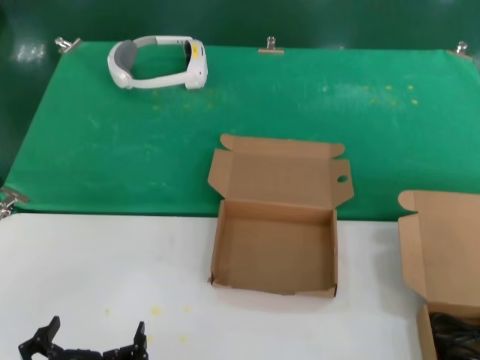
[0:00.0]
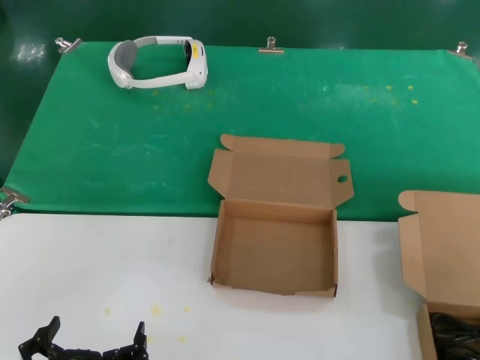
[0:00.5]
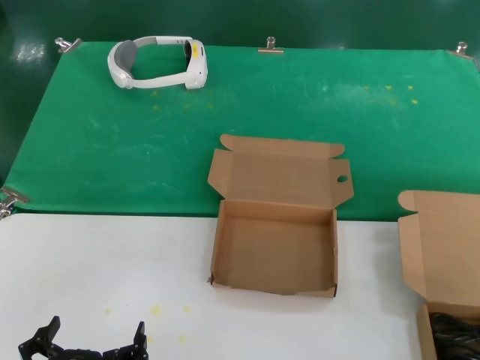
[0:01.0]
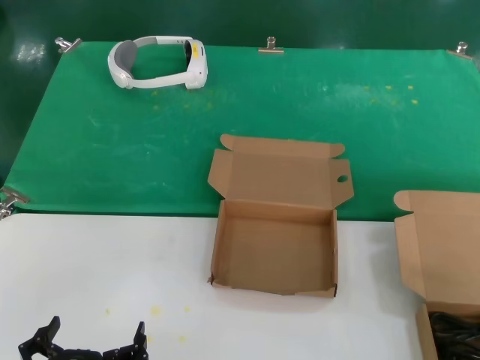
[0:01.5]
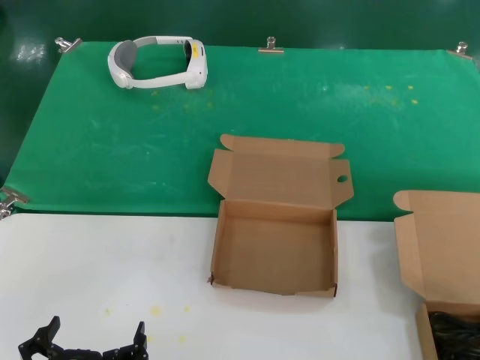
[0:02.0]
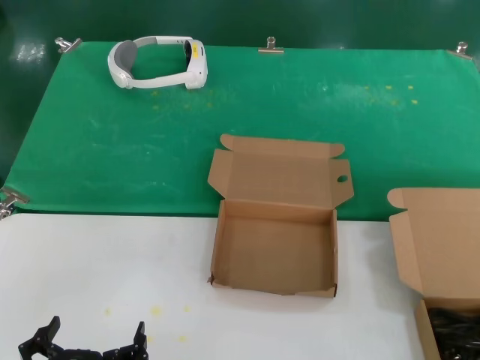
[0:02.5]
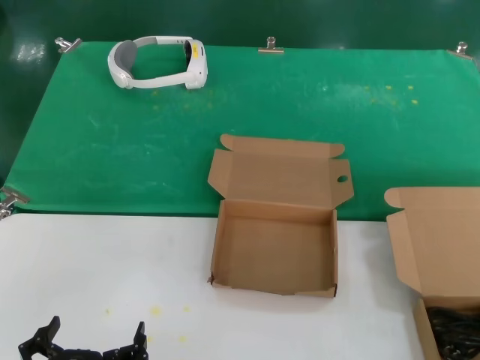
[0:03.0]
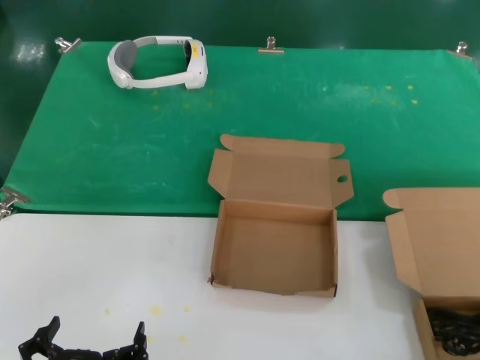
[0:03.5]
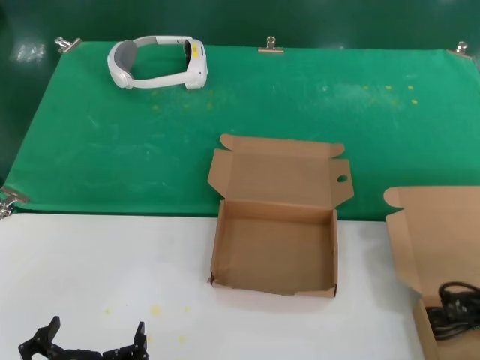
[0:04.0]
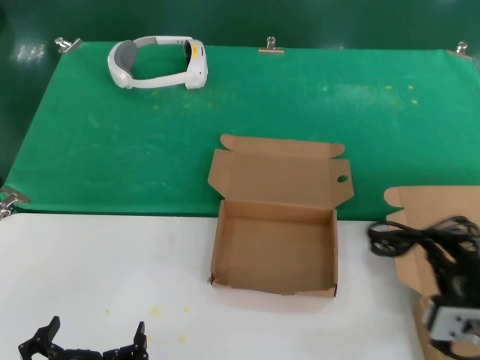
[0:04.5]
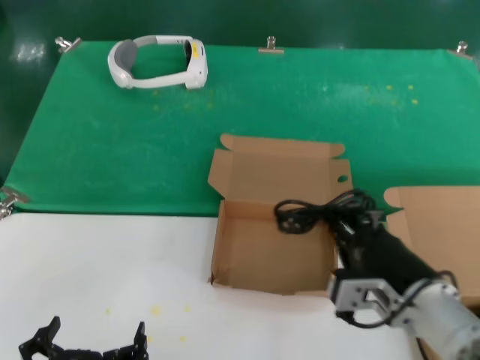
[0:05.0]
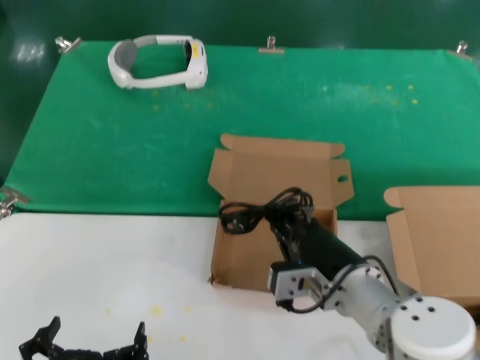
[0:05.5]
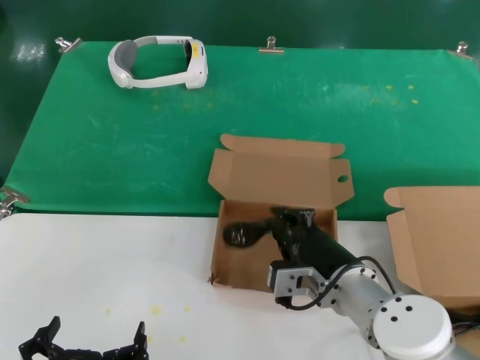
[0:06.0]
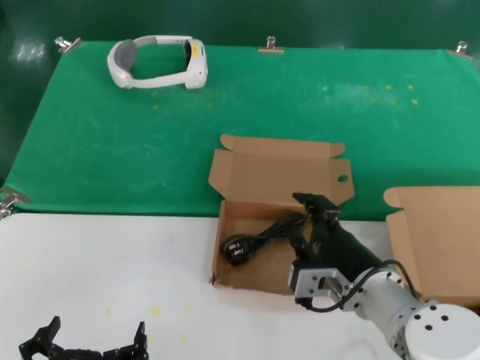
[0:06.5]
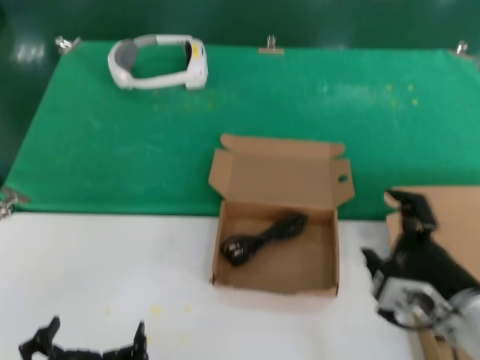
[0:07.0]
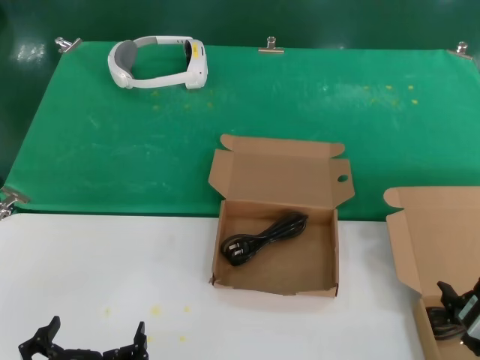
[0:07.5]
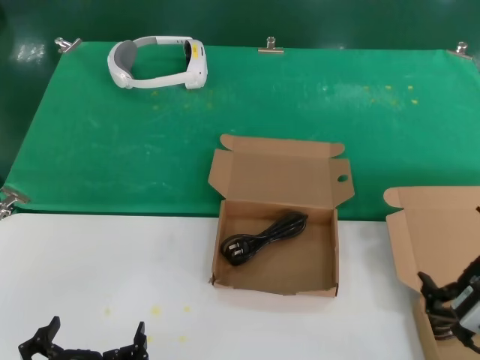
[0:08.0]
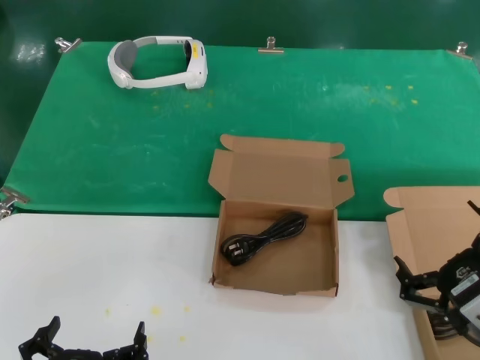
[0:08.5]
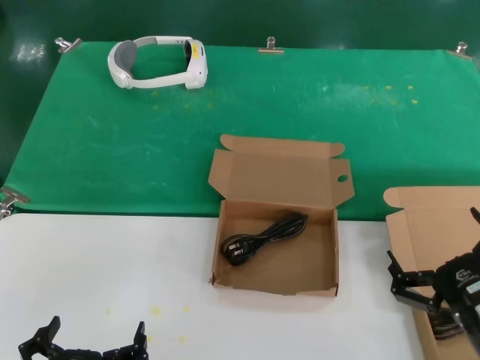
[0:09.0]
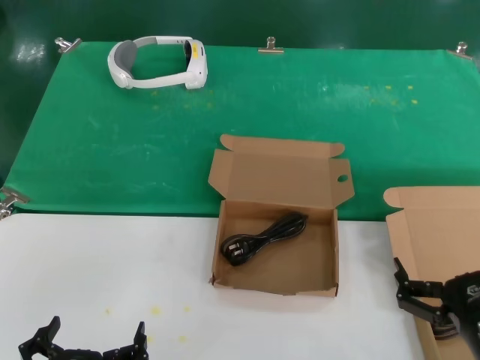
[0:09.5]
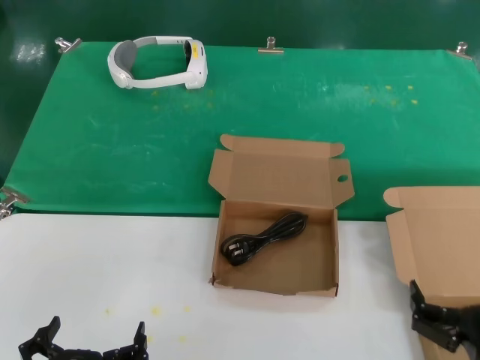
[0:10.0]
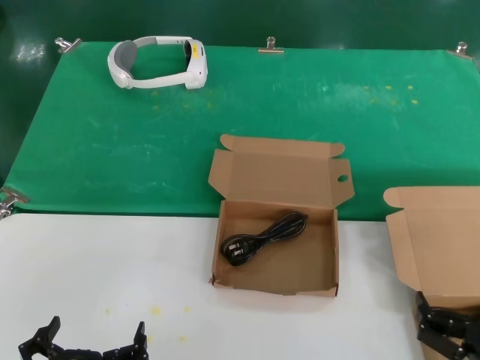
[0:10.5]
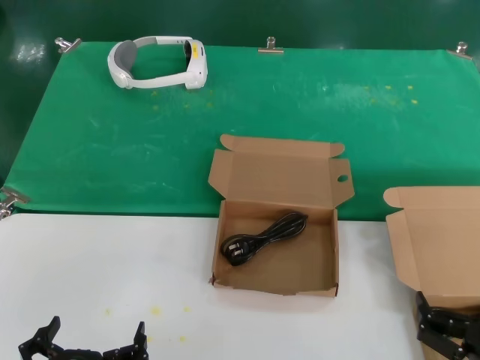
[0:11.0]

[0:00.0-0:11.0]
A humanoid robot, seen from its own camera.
Task of the whole recording: take the parts from the box containing them and put them into an empty box.
Step, 0:00.0 to 0:06.0: Place the data cable in the another box.
0:02.0 to 0:03.5: The hands stay close to where they were, moving slightly.
0:03.5 to 0:05.5: The right hand is displaced to the left and forward by some 25 cm.
0:05.5 to 0:07.5: The right hand is displaced to the right and backward by some 20 cm.
0:09.0 to 0:11.0: The right hand heads downward, covering about 5 cm.

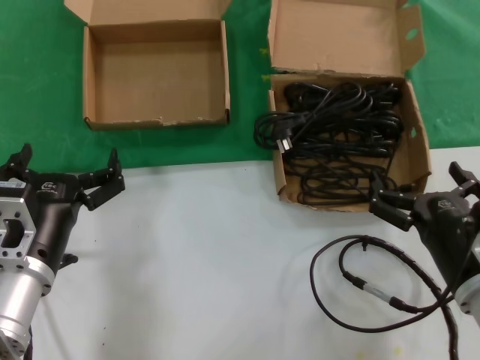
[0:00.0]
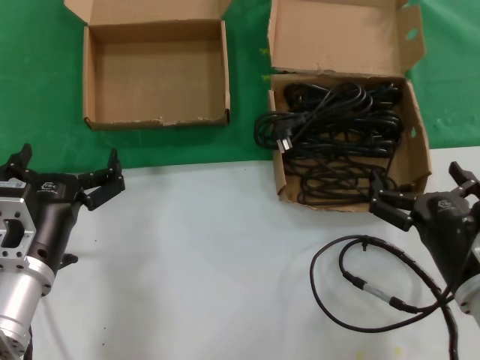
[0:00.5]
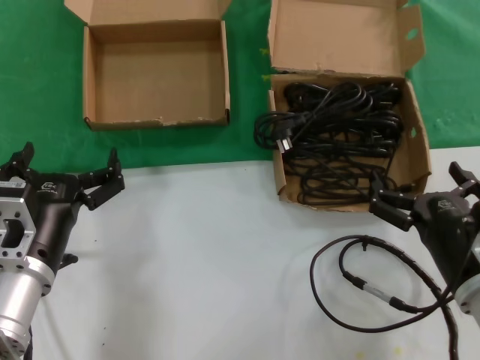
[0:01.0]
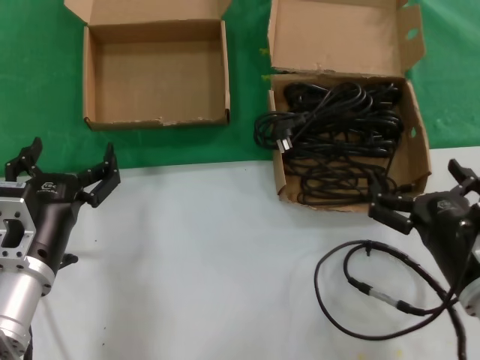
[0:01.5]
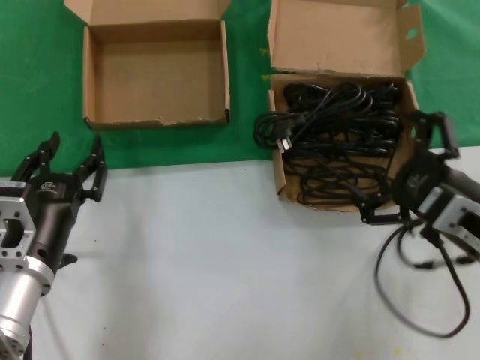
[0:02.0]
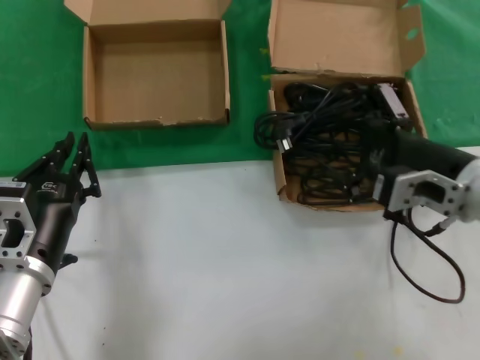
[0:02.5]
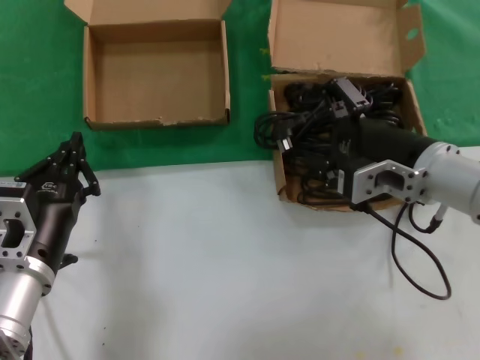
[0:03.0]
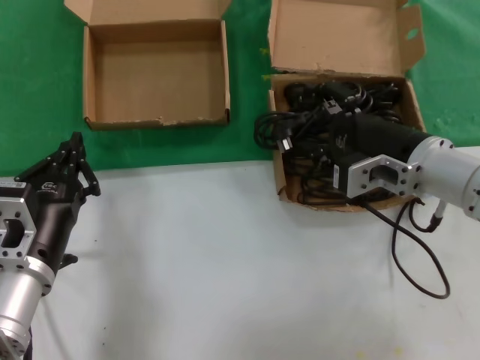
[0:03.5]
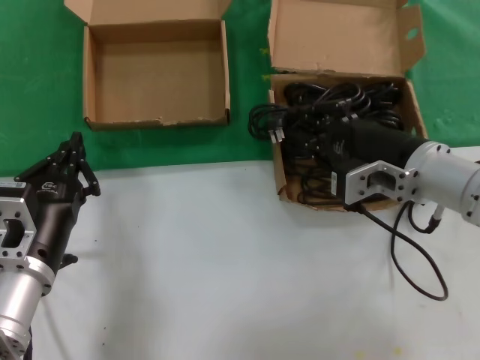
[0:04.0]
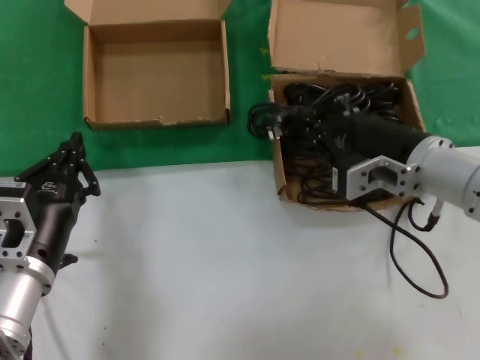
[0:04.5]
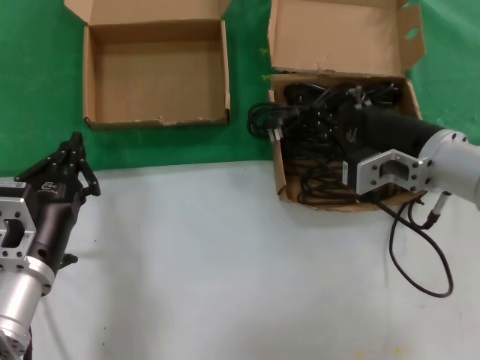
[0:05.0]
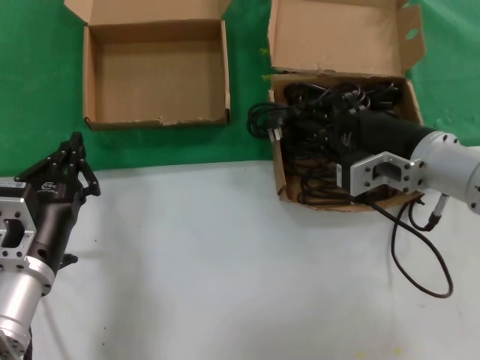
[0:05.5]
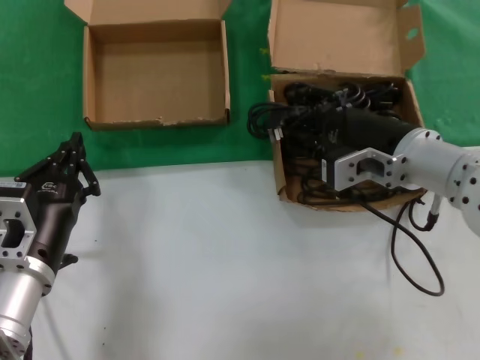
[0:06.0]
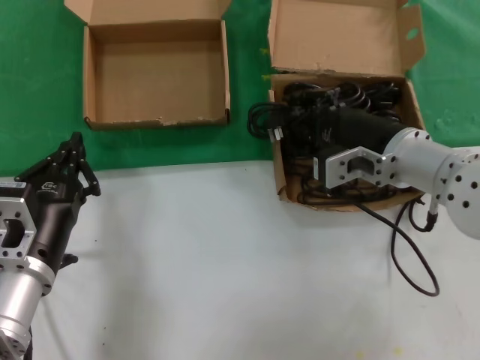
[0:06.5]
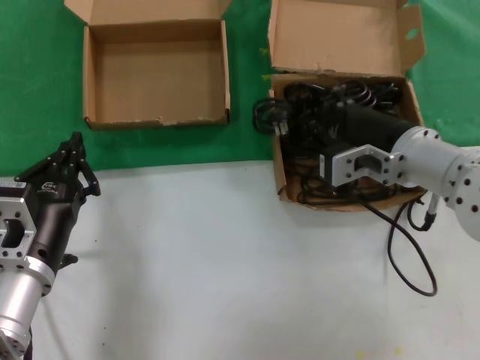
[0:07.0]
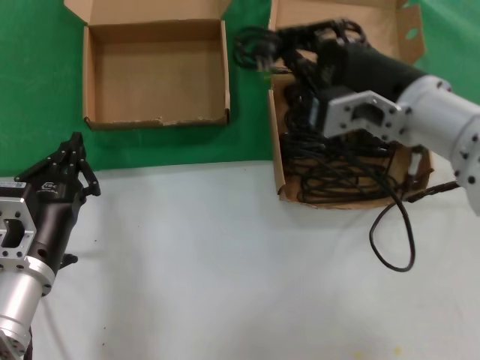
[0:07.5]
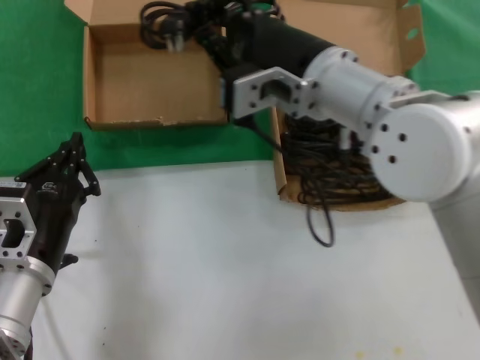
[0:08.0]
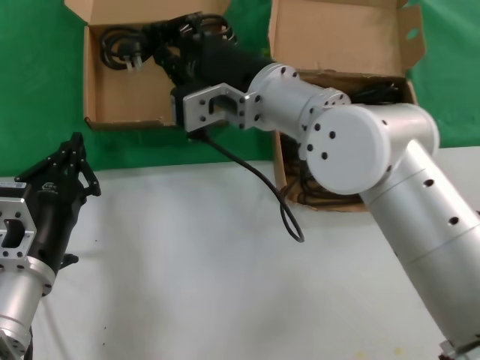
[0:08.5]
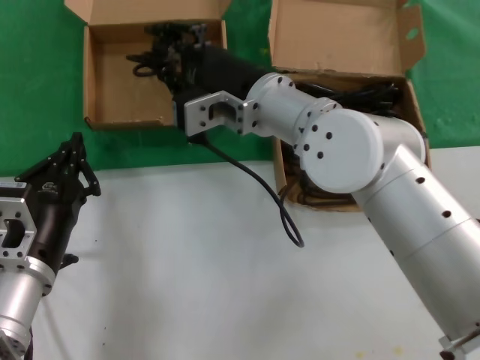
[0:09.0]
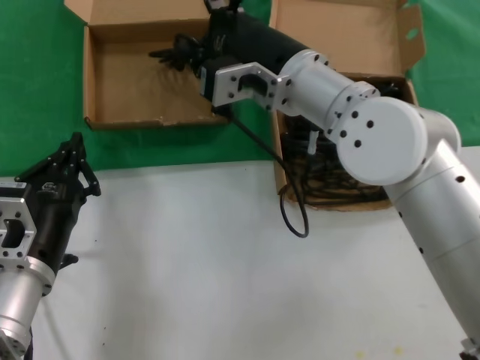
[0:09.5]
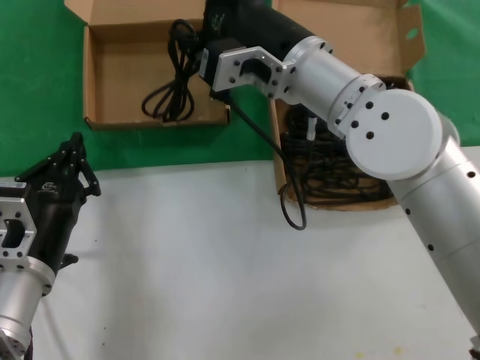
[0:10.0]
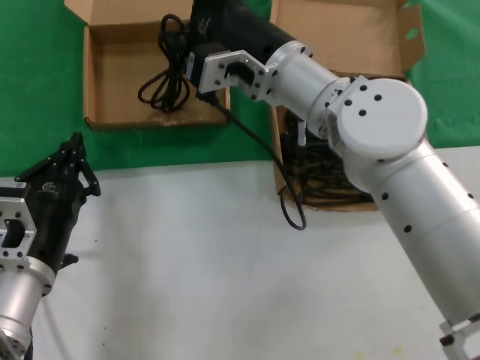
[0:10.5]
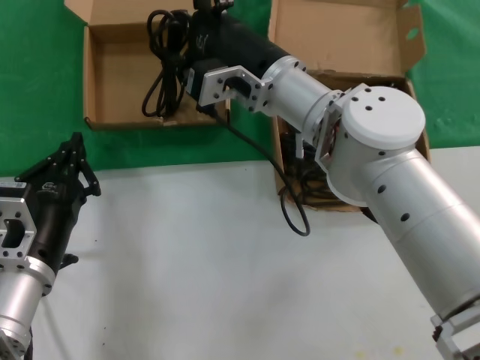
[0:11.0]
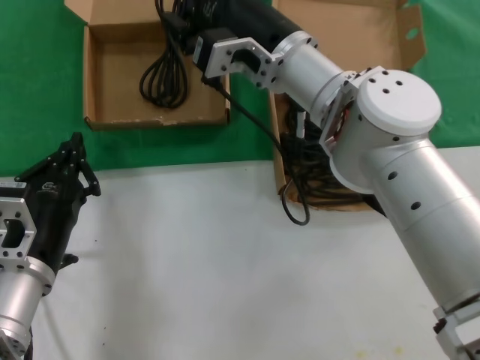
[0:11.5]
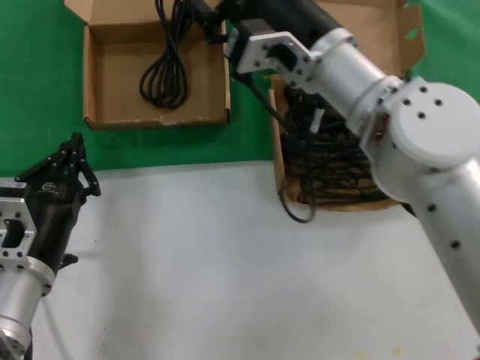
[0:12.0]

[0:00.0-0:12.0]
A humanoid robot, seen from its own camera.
Task of the whole recording: take the parts from the box containing them and put them into an empty box.
Step, 0:00.0 to 0:06.5: Grasp the data cable.
Step, 0:07.0 to 0:11.0: Place the data cable in the another box.
0:00.0 to 0:02.0: The right hand shifts approximately 10 cm upward.
0:02.0 to 0:04.0: The right hand moves forward and to the left, approximately 10 cm.
0:04.0 to 0:06.0: The hands move only a little.
0:06.0 to 0:08.0: The right hand heads to the left and upward, covering roughly 15 cm.
0:10.0 to 0:12.0: The hands make only small movements.

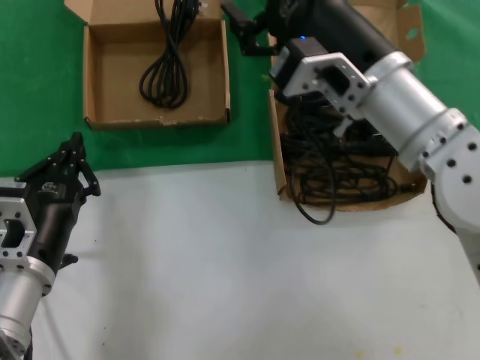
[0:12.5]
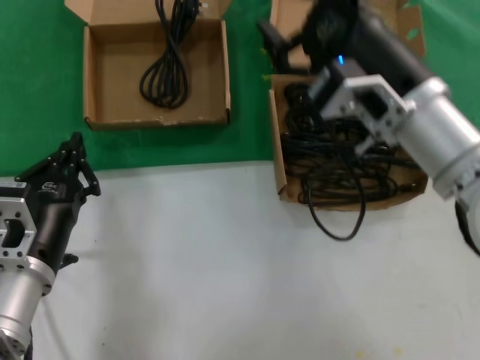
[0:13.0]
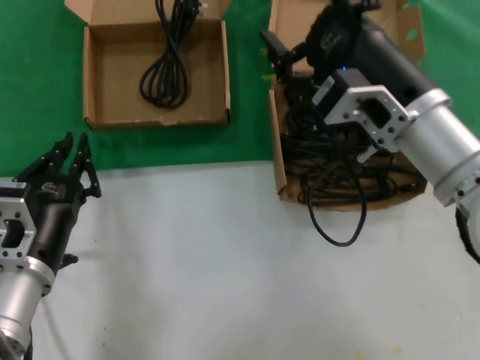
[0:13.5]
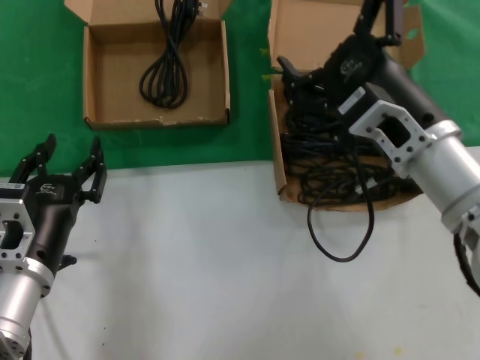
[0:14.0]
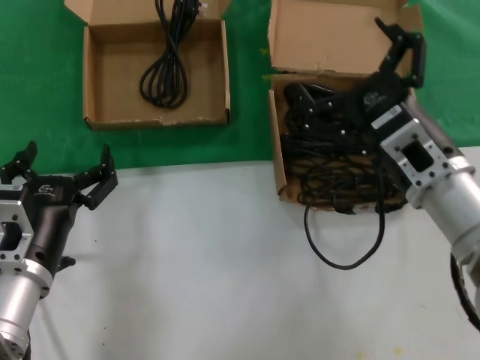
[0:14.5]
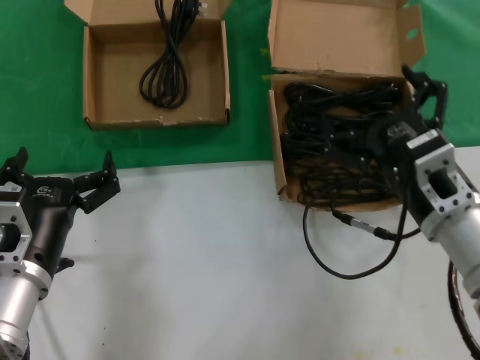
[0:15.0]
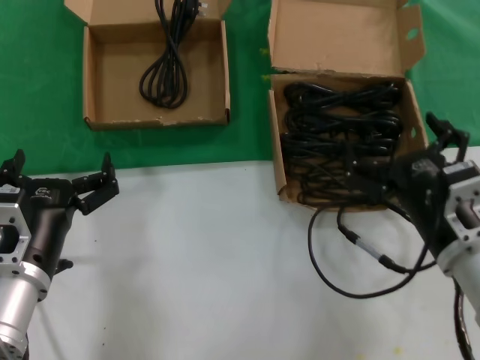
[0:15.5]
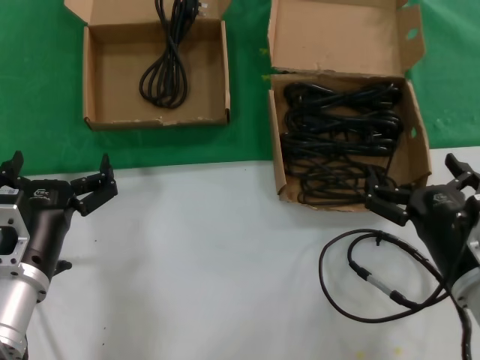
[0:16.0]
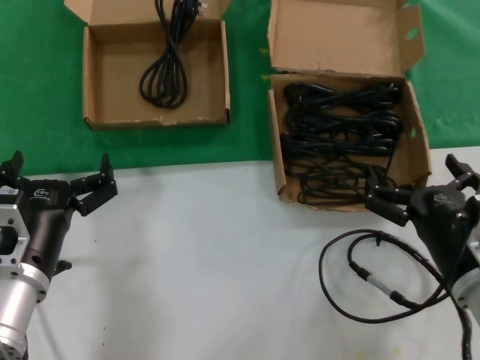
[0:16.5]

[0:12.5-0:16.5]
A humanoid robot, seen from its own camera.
Task of the whole recording: take the parts from the box containing them and put them into an empty box.
0:12.5 to 0:14.5: The right hand moves downward and to the right, about 10 cm.
0:14.5 to 0:16.5: The right hand is displaced downward, backward and to the right by some 15 cm.
